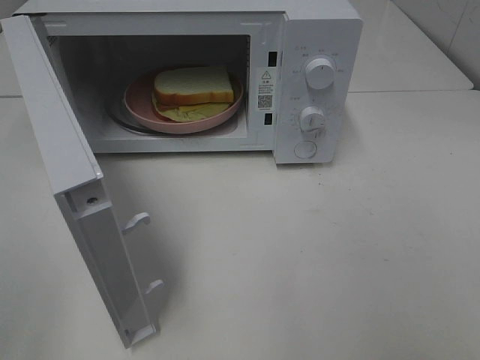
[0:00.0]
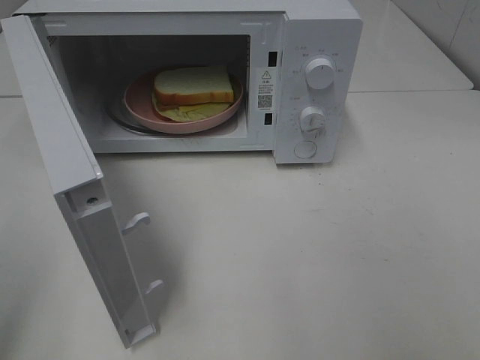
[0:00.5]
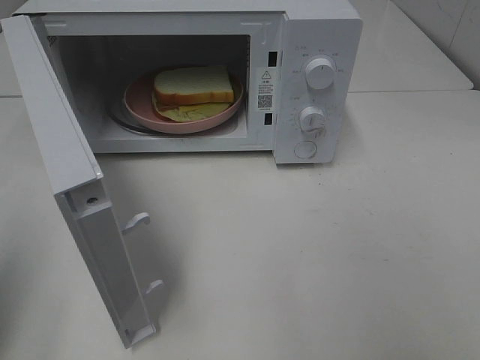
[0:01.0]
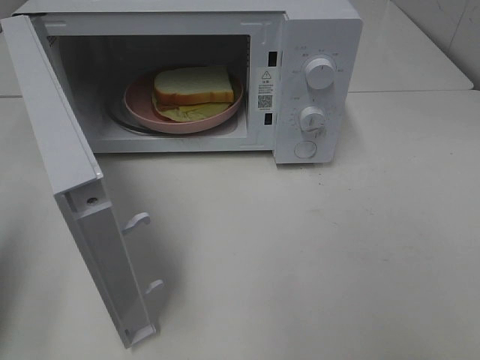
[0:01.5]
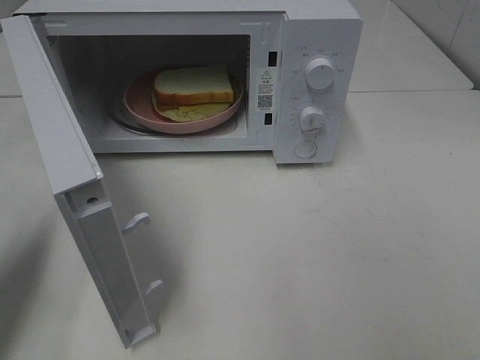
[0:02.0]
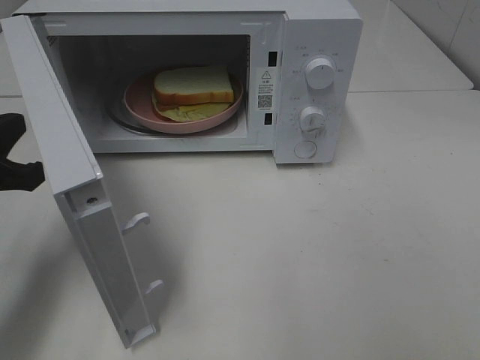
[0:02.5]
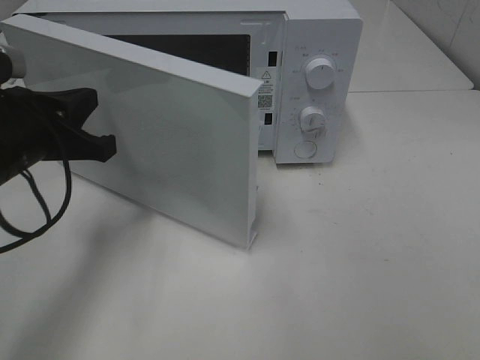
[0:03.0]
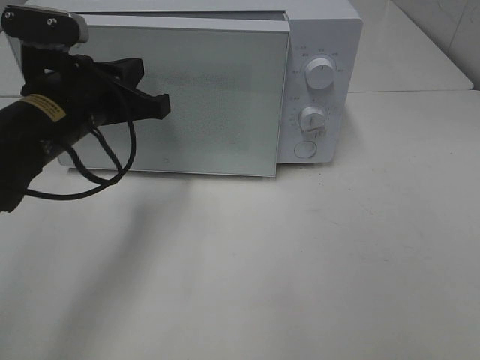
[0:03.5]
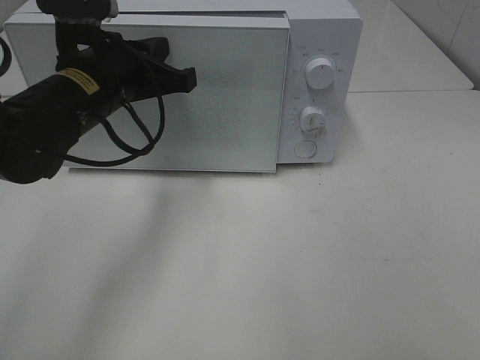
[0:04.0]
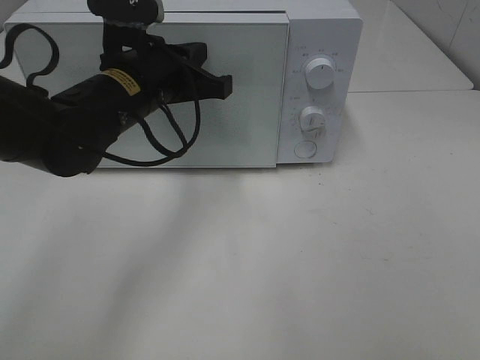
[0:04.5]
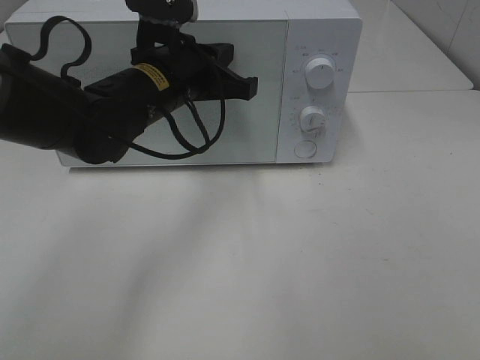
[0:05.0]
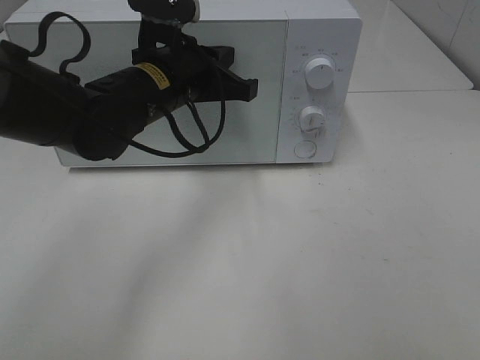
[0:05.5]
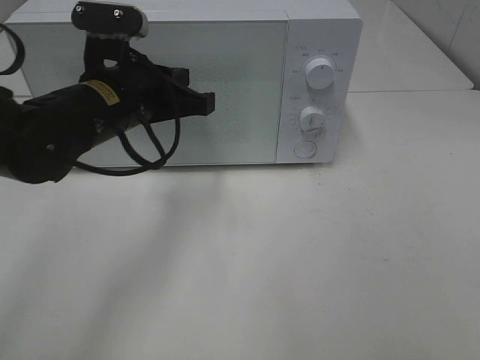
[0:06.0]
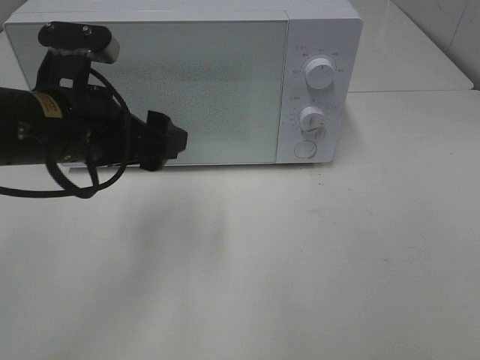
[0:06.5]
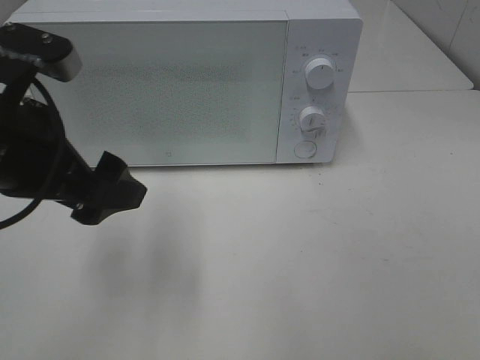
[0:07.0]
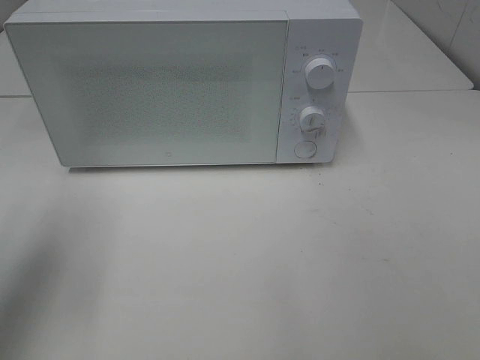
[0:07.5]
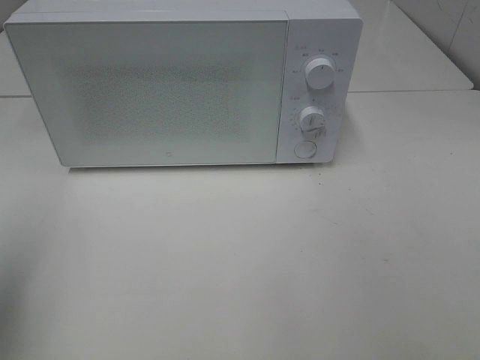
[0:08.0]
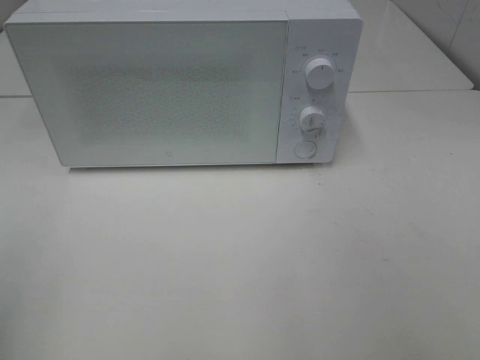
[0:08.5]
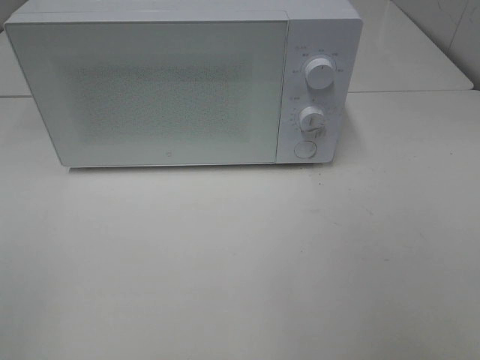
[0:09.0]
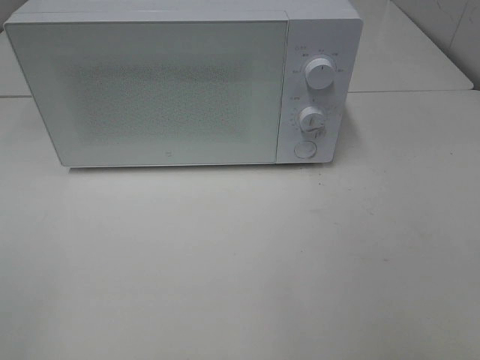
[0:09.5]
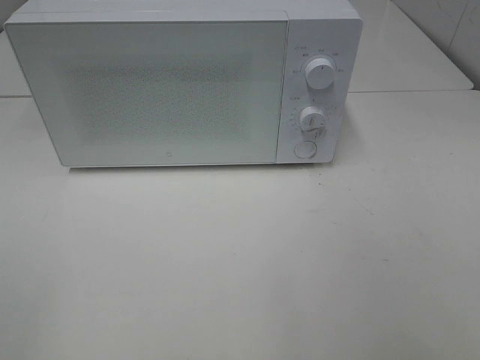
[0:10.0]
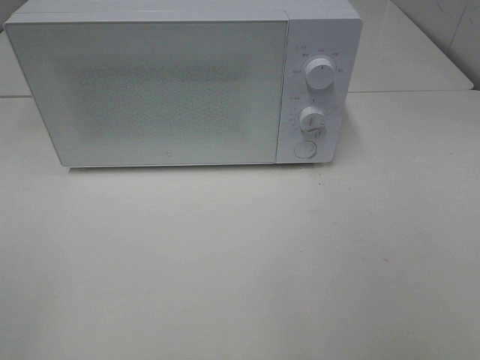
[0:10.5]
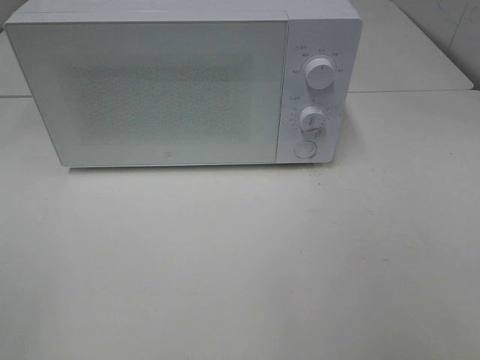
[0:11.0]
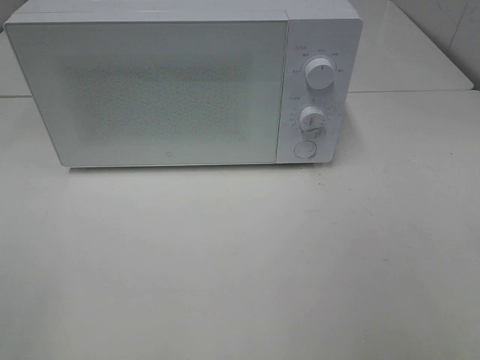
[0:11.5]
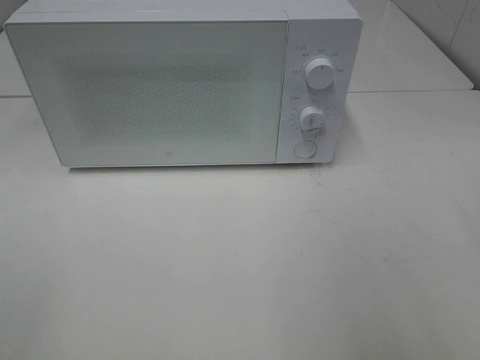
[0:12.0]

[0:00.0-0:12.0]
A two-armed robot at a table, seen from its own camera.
Task of the whole recording: Heat Sandwich.
Step, 0:00.0 to 0:05.0: Left hand: close the microwave door.
0:00.0 to 0:02.0: The left gripper heads forward and downward, covering approximately 20 cm, and closes up.
0:02.0 to 0:04.0: The left gripper is displaced to the right and forward by some 20 cm.
0:06.0 to 0:08.0: The left gripper heads to the left, backward and upward, covering some 30 cm, and opens its fingers.
0:08.0 to 0:10.0: The left gripper goes some 15 cm backward.

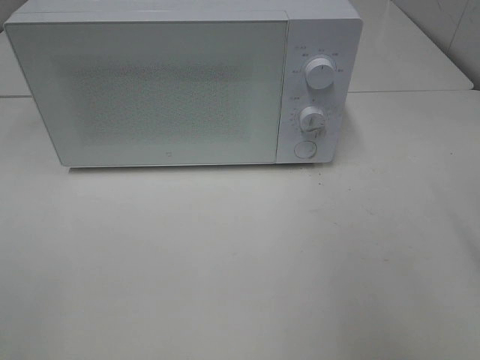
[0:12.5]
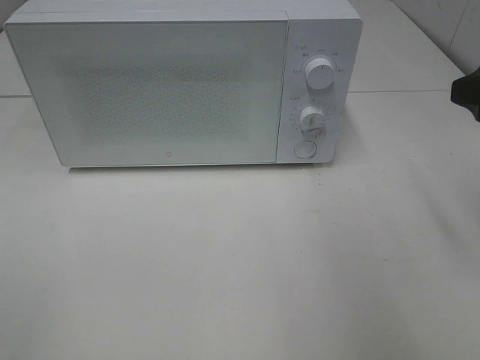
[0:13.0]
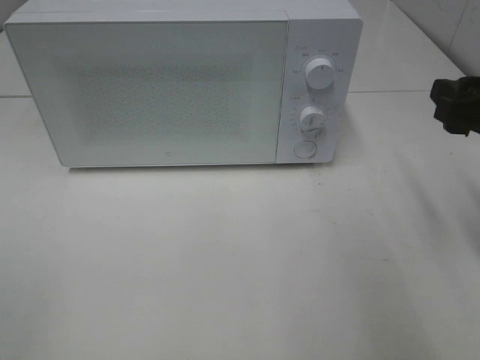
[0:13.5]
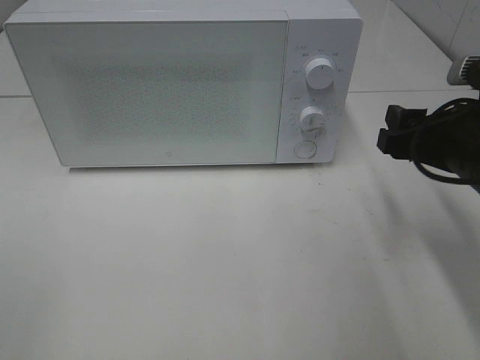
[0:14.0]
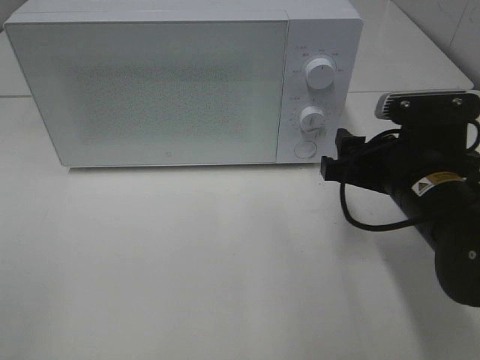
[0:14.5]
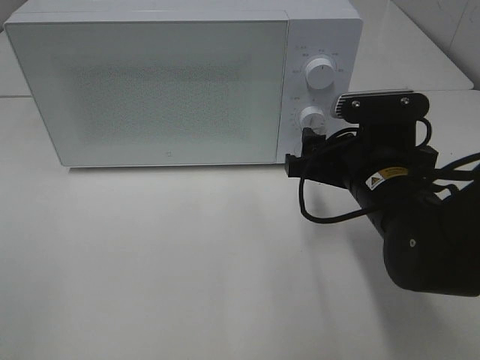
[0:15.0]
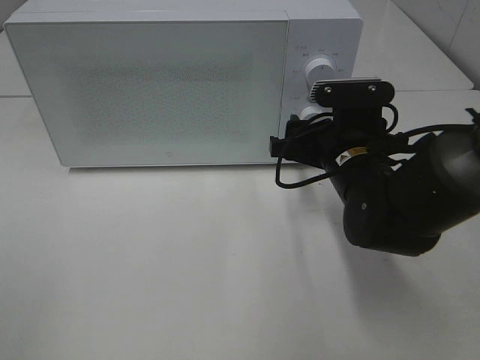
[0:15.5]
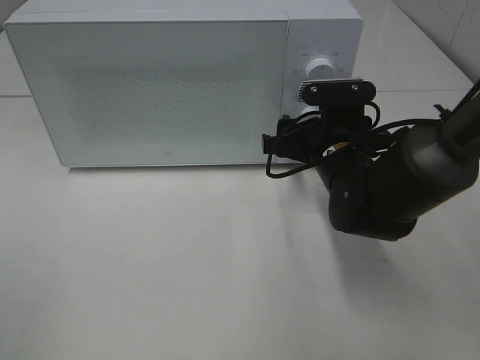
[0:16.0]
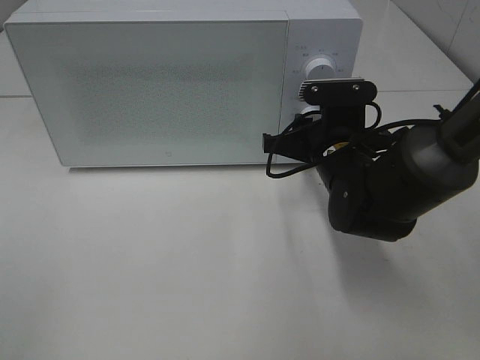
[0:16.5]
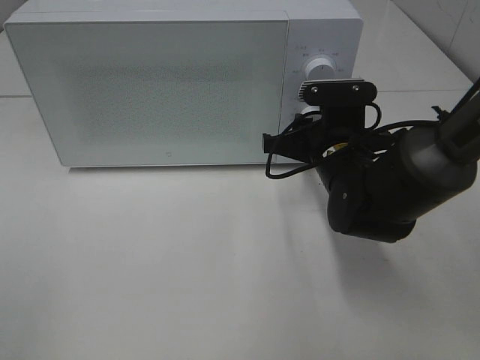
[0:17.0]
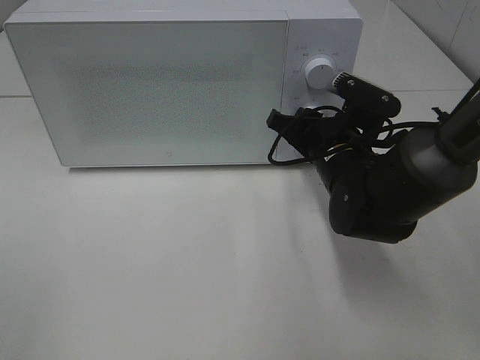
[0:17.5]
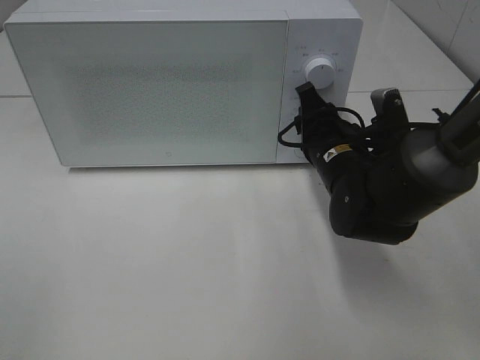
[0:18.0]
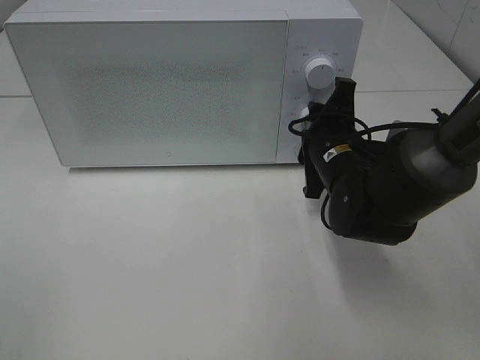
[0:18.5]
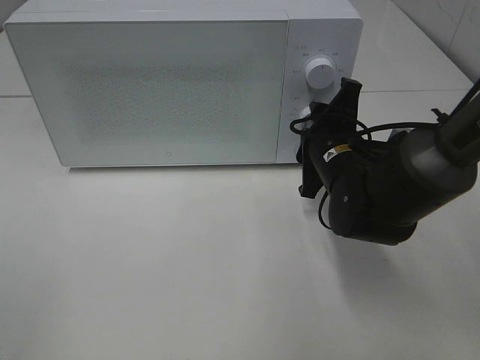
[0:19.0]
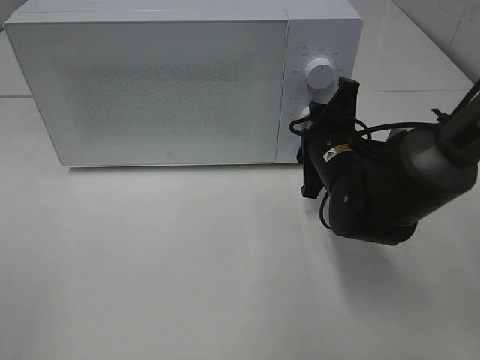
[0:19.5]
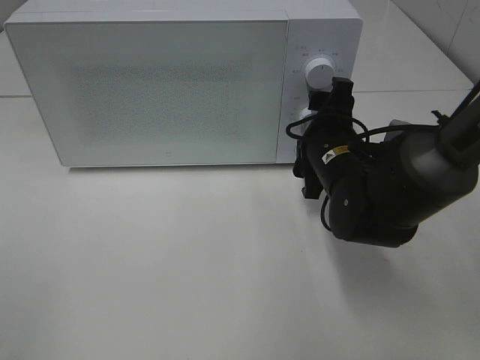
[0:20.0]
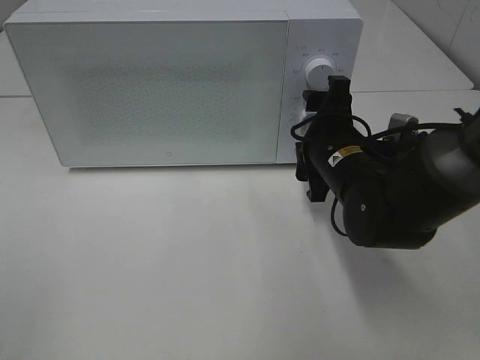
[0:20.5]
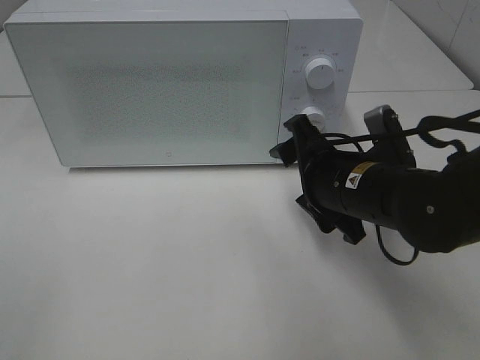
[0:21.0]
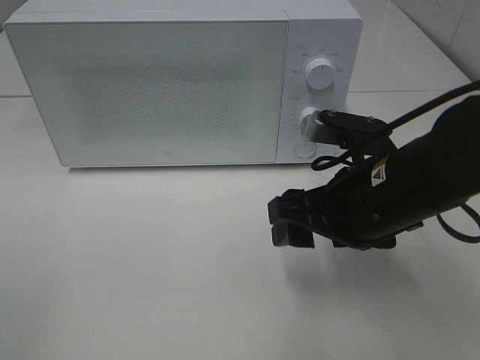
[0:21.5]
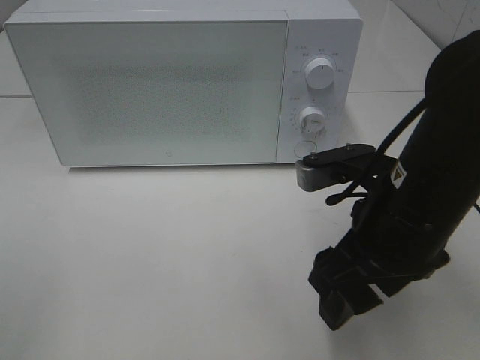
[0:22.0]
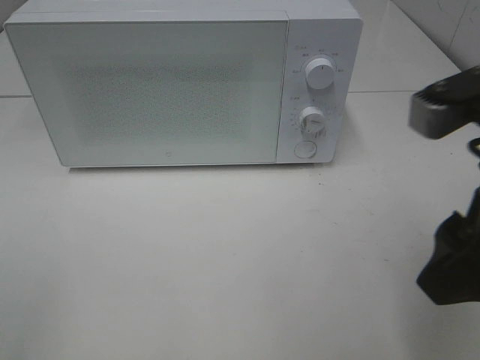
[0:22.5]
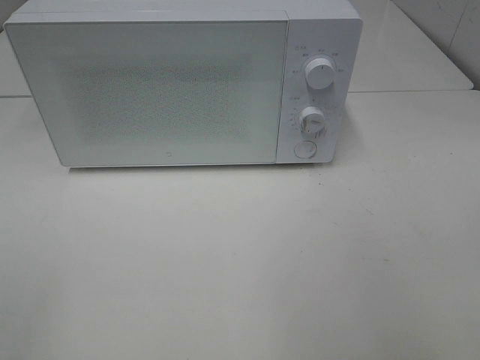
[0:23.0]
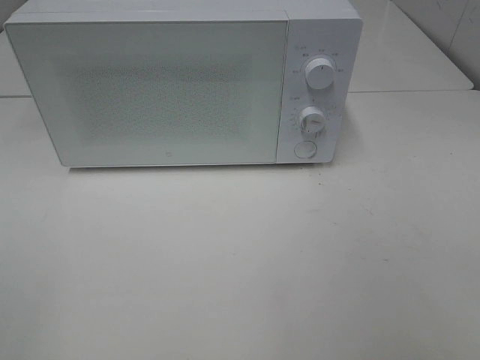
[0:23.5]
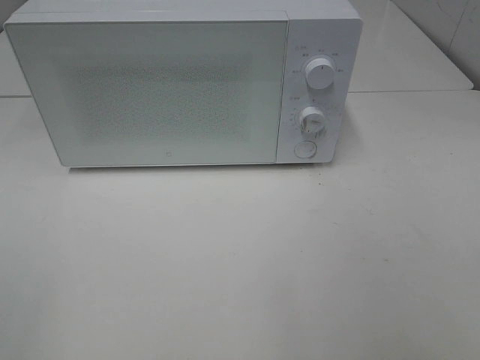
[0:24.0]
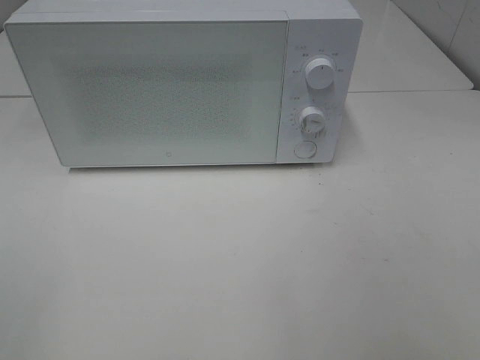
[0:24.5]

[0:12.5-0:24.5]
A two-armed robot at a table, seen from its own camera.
Task of the whole recording: Heat Sandwich.
Step, 0:12.5 to 0:20.5: Right hand: twist timer button.
0:12.5 to 0:14.5: The right gripper travels downward, to the left and forward by some 20 cm.
0:14.5 to 0:16.5: The right gripper moves forward, about 10 cm, and closes its fingers.
0:18.5 to 0:20.5: The right gripper opens its fingers.
0:20.5 to 0:22.5: The right gripper moves backward and upward, about 25 cm.
0:22.5 to 0:24.5: The right gripper shifts roughly 15 cm backward and to the right.

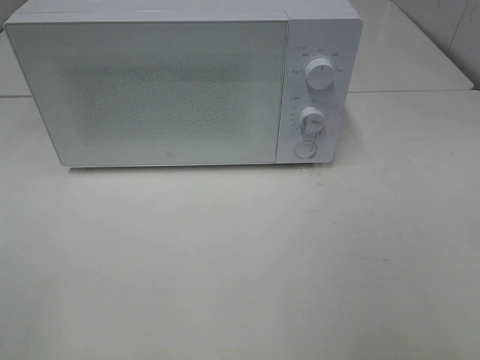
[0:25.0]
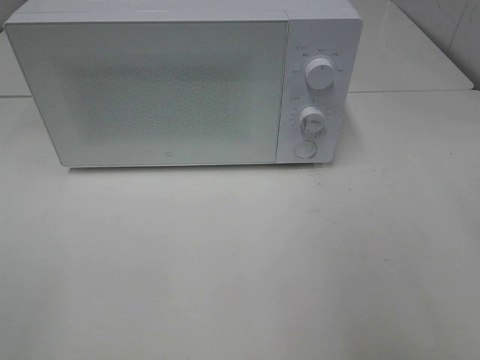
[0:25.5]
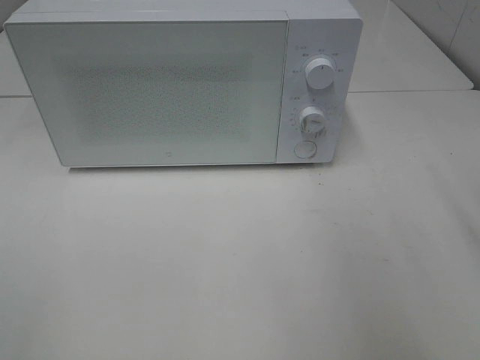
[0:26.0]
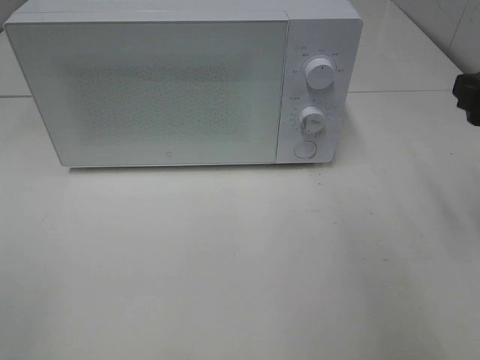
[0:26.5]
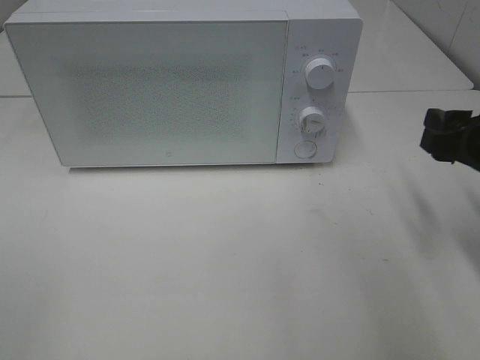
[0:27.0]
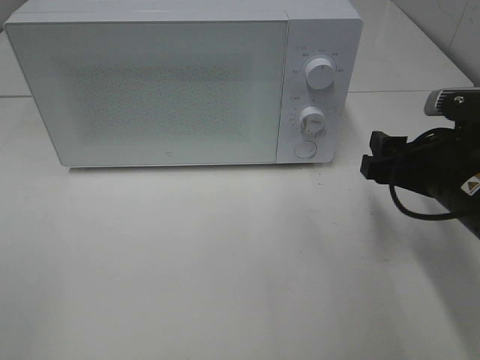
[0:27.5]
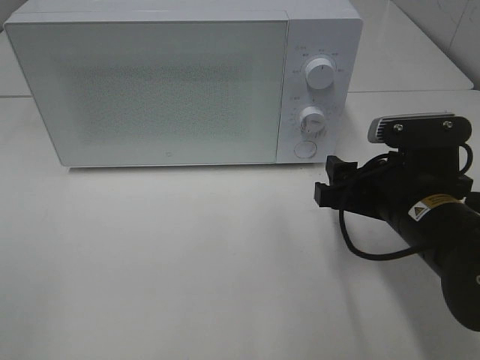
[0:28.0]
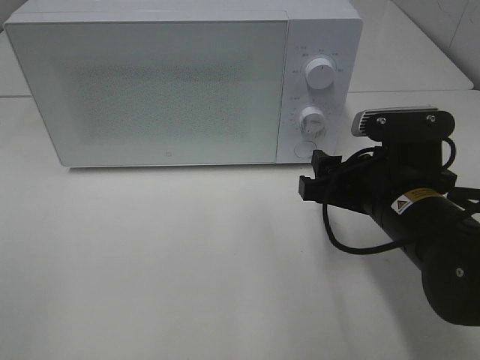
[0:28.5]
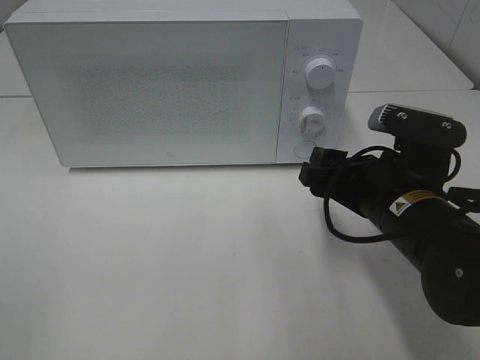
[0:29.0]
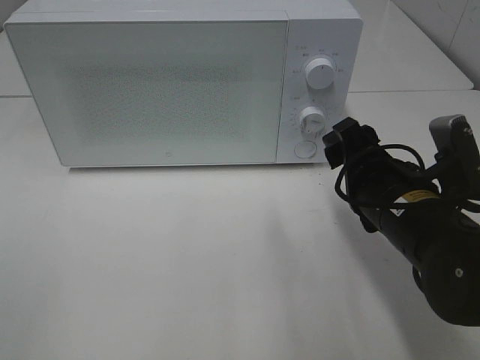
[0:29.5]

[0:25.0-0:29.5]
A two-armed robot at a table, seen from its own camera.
Task of the whole recording: Heat Sandwich.
0:25.0 to 0:27.0: The right gripper shifts approximately 25 cm forward and downward.
0:27.0 to 0:29.5: The right gripper moves to the left, some 10 cm.
